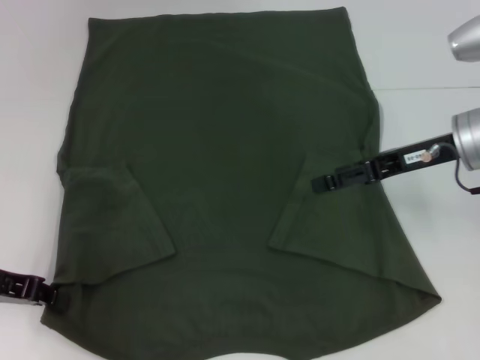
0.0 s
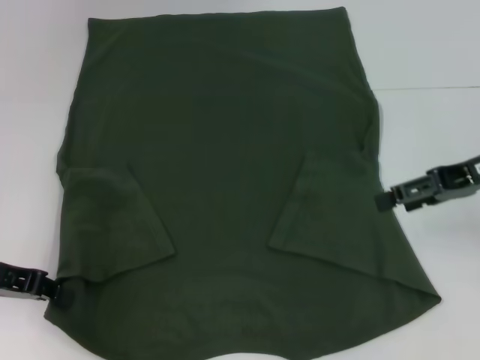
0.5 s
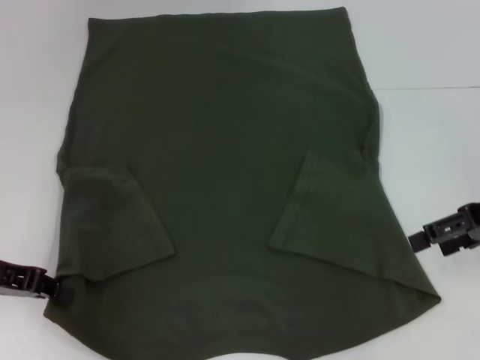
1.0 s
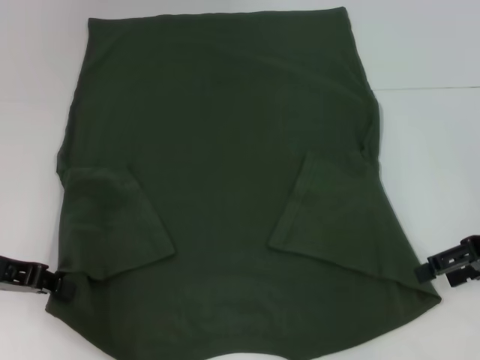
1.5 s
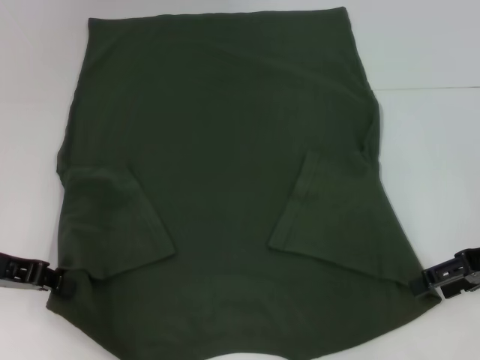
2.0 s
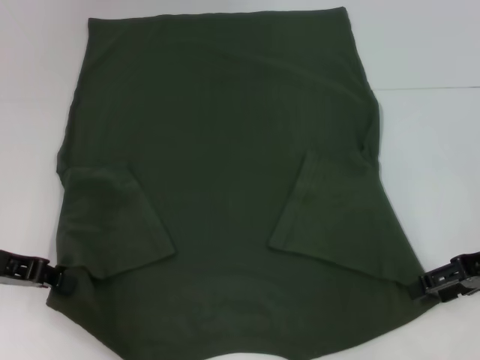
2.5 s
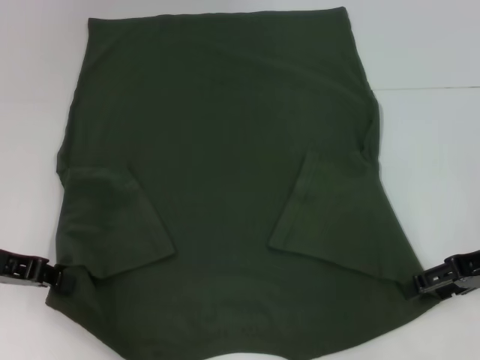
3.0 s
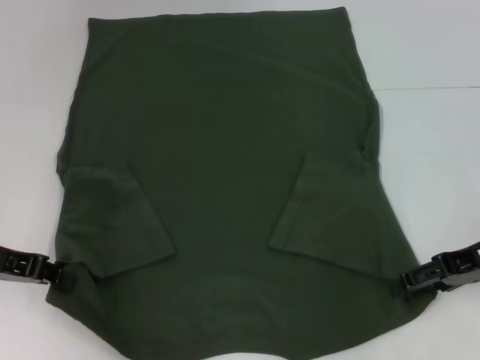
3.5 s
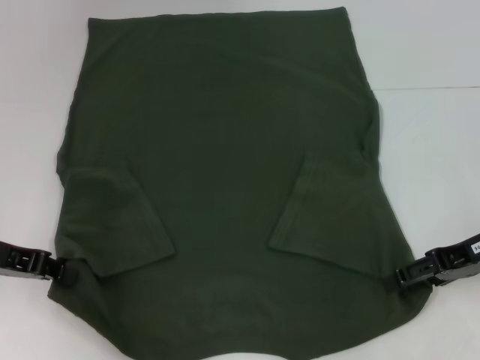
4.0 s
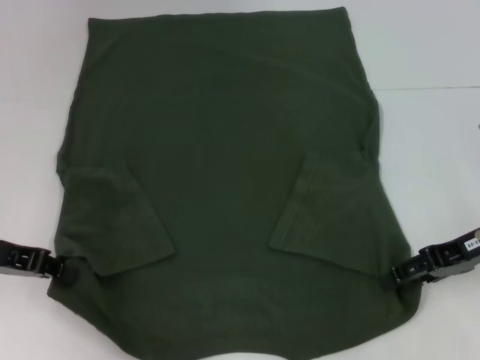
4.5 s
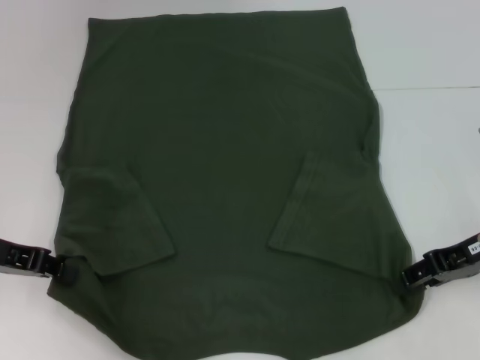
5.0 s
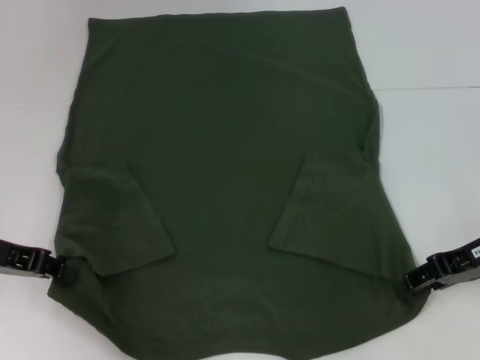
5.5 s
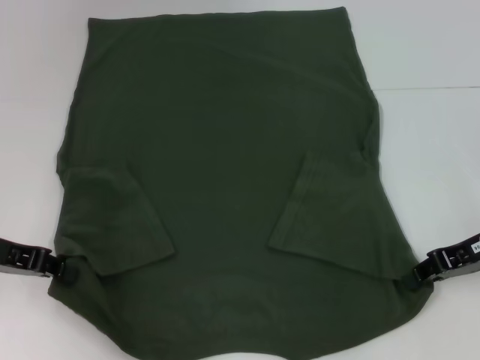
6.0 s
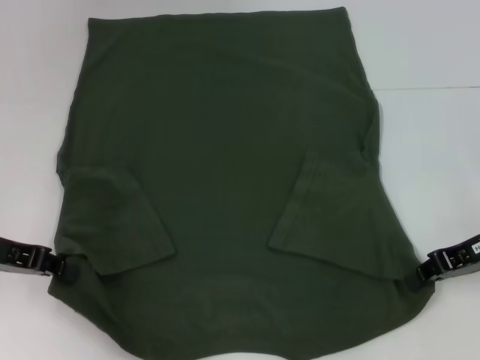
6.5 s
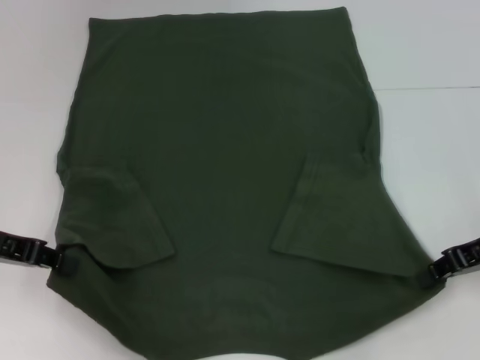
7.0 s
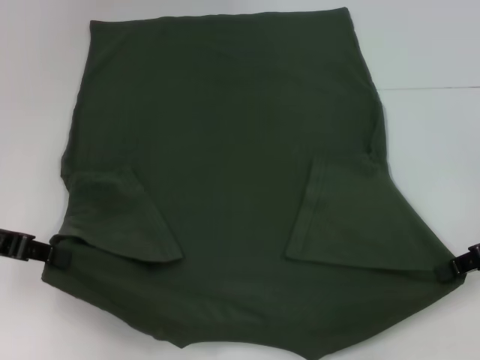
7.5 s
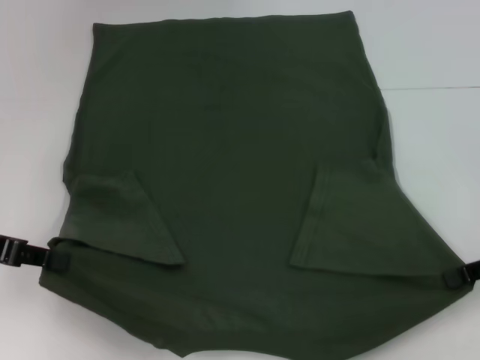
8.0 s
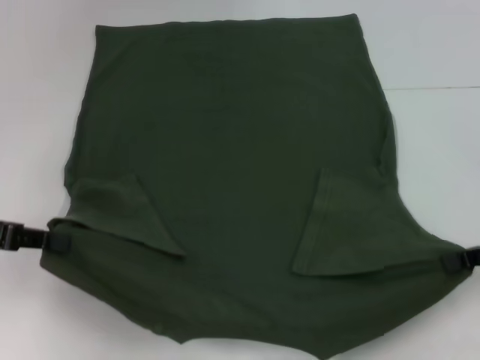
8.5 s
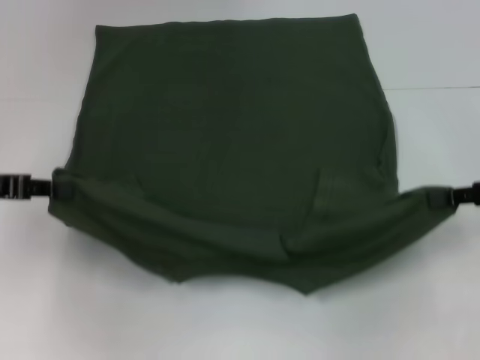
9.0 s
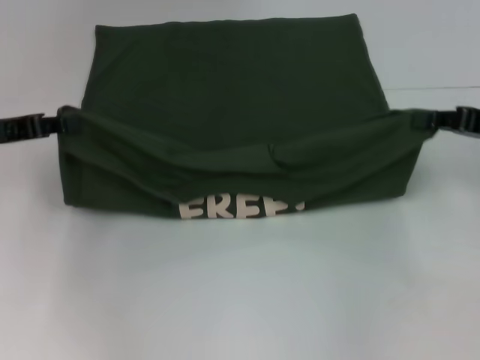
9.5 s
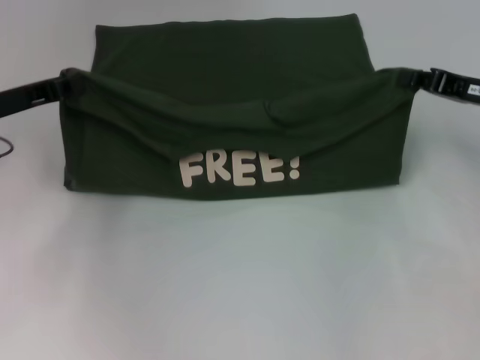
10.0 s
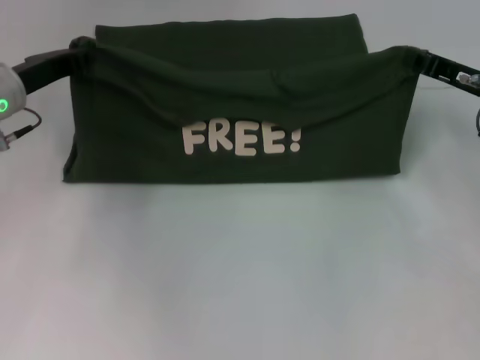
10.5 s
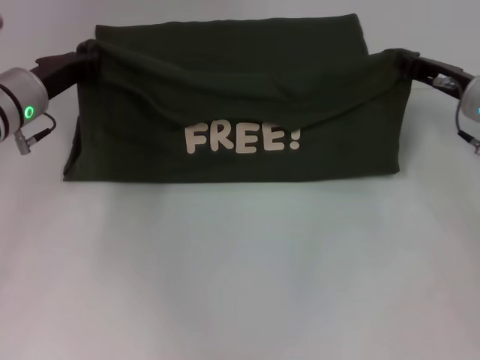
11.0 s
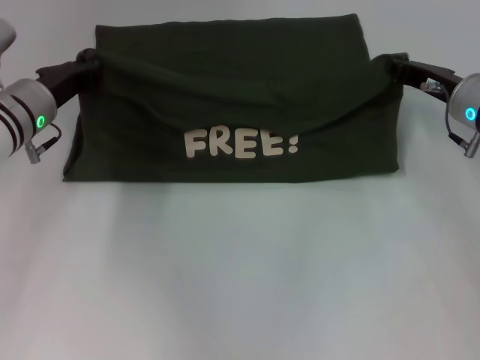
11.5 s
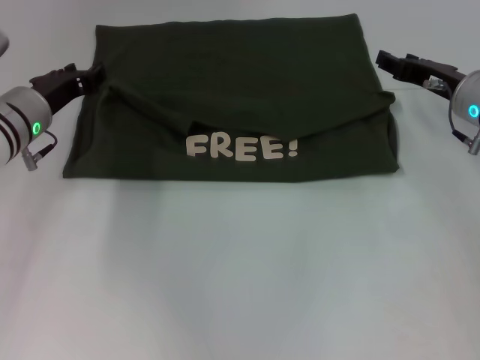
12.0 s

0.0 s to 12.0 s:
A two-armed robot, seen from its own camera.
Step, 0.0 to 6.5 s: Grab the bottom right corner with your right hand.
Step, 7.0 to 12.0 s: Fold the clothes with your left hand.
Step, 7.0 to 12.0 s: Fold the clothes with your right hand.
0.0 to 2.0 s: The right gripper is displaced to the right and backward by roughly 10 cm.
2.0 to 4.0 s: The grippers stay close to where they were, moving slightly.
6.0 to 8.0 s: The right gripper moves to the right, approximately 5 cm, and closes.
8.0 to 10.0 s: The grippers both shift forward by roughly 10 cm.
10.0 to 12.0 s: The left gripper travels to the right by roughly 5 cm; the right gripper shifts by approximately 5 cm, and opens.

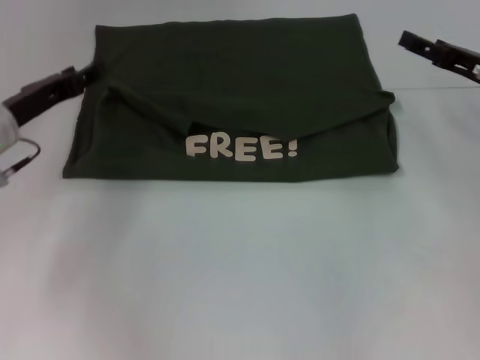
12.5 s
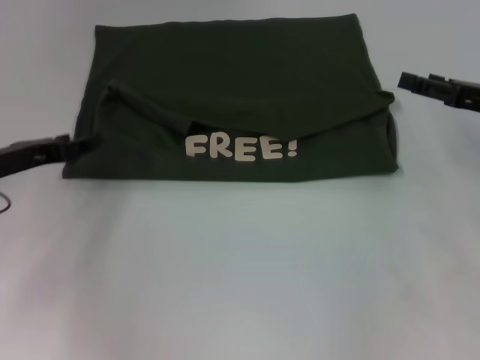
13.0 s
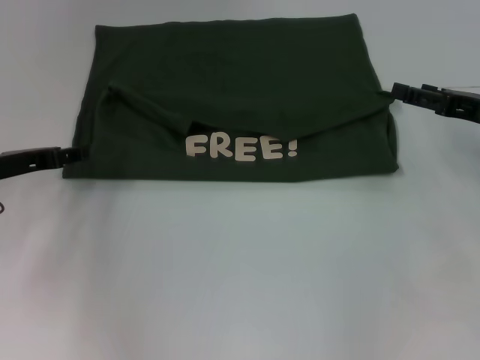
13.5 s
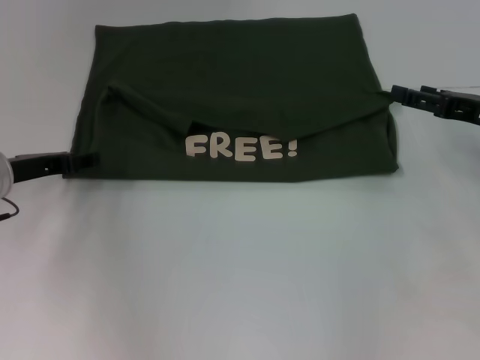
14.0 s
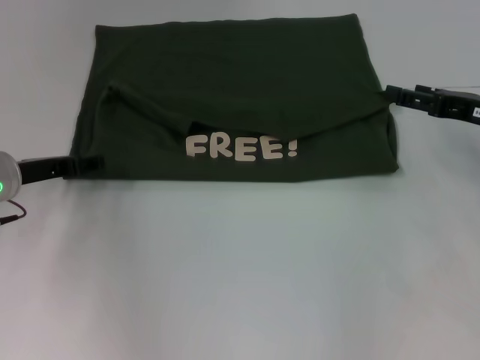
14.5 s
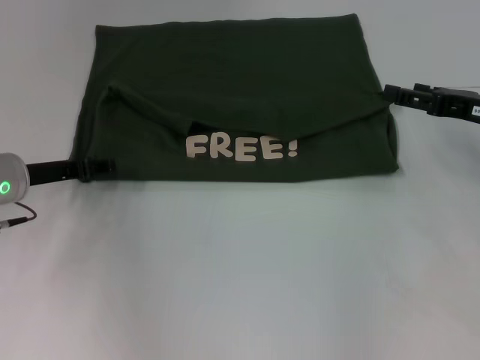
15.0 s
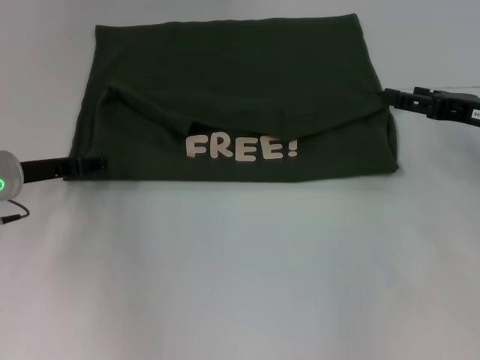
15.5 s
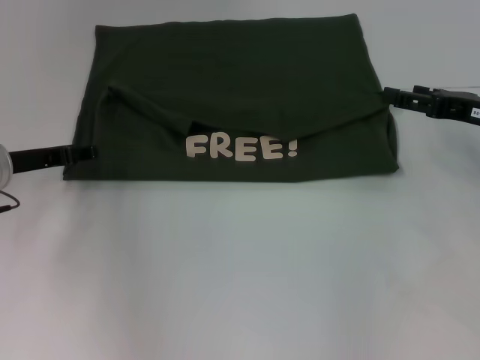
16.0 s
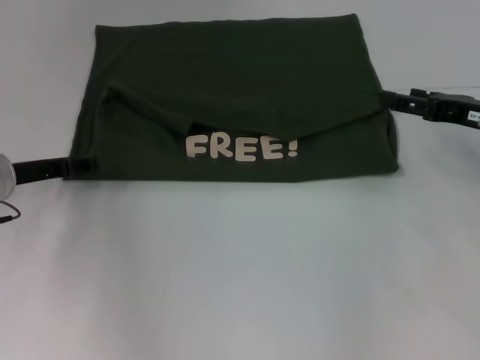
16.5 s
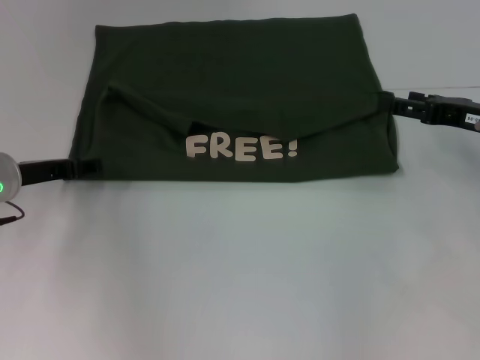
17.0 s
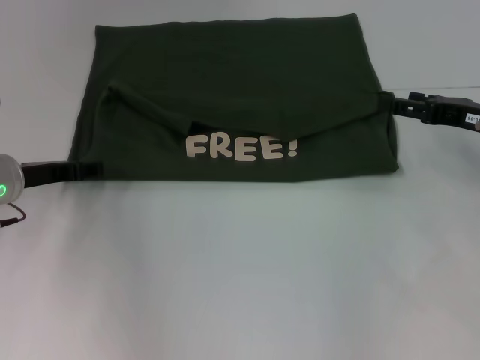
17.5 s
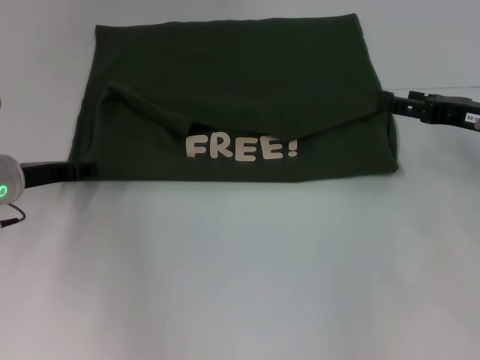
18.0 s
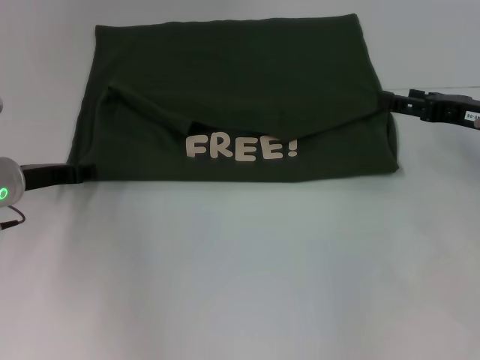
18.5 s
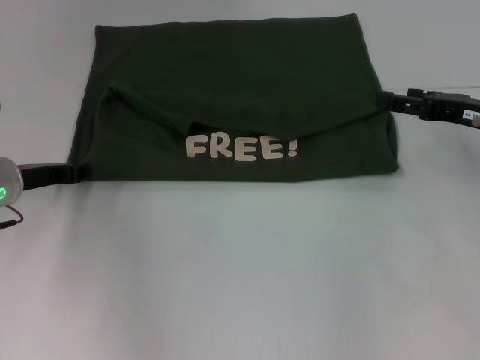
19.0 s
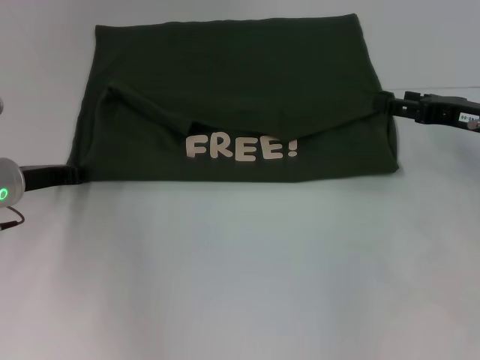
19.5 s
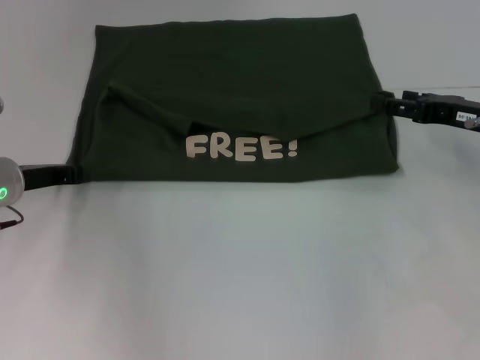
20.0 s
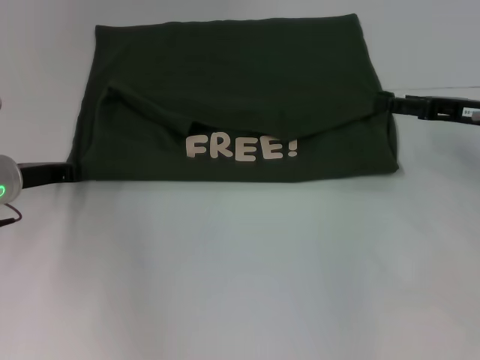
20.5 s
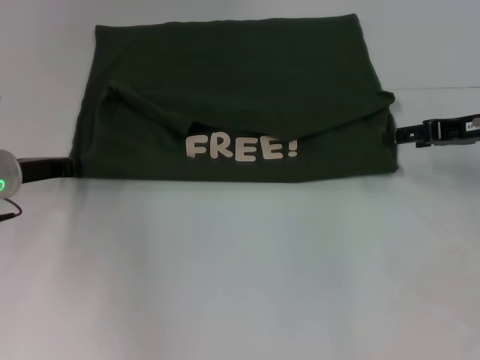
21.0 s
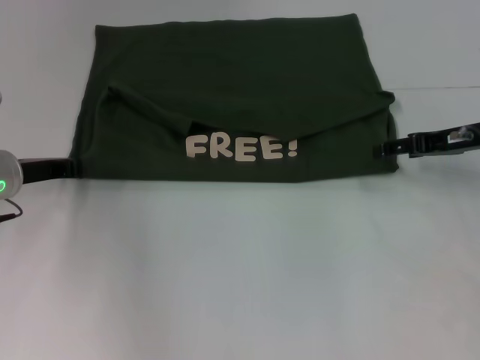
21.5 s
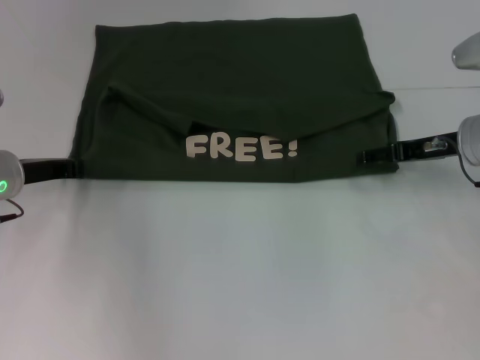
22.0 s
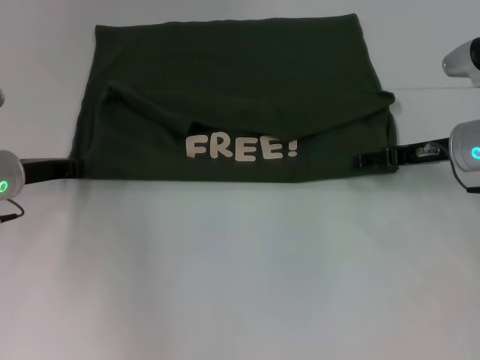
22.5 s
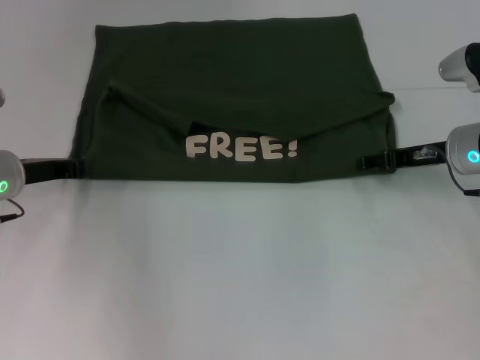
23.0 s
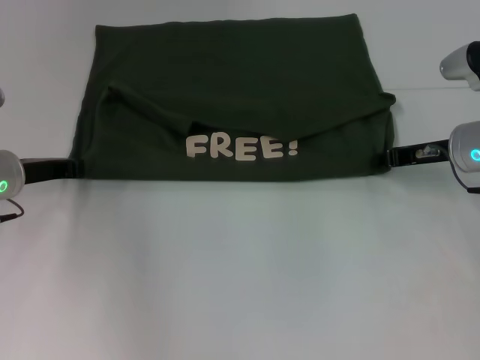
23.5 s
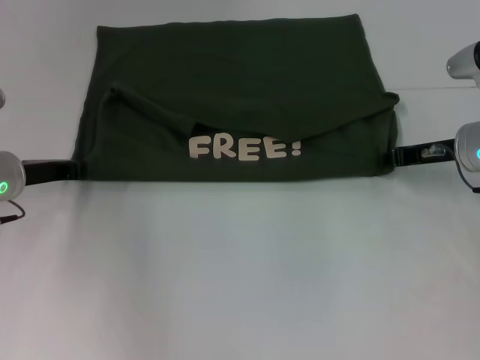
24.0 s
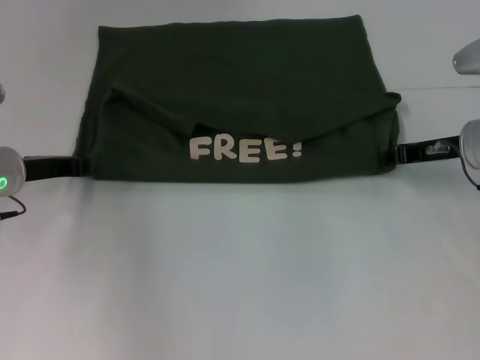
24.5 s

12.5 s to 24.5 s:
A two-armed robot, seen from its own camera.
14.5 to 16.5 s: The grippers stay close to where they were, moving slightly.
16.5 to 18.5 s: Neither gripper changes place.
20.5 to 22.5 s: The right gripper moves roughly 5 cm.
22.5 to 24.5 s: The right gripper closes.

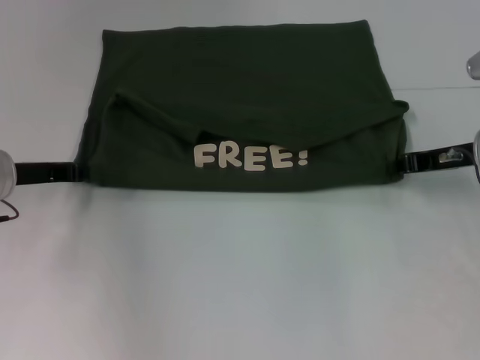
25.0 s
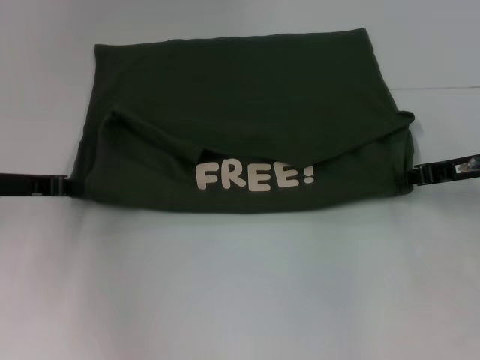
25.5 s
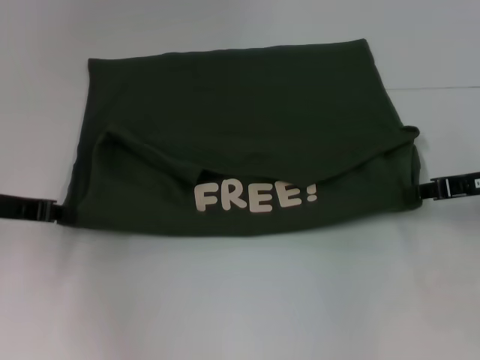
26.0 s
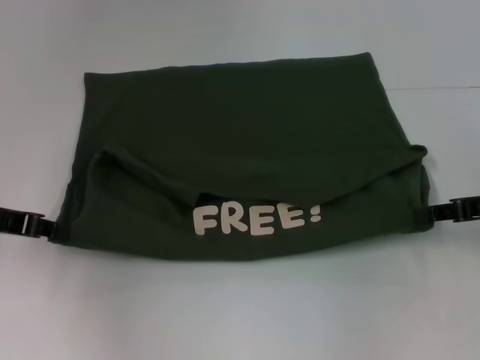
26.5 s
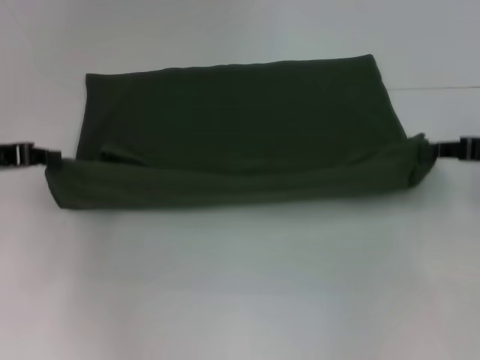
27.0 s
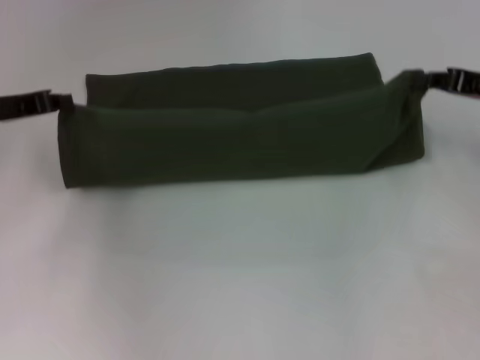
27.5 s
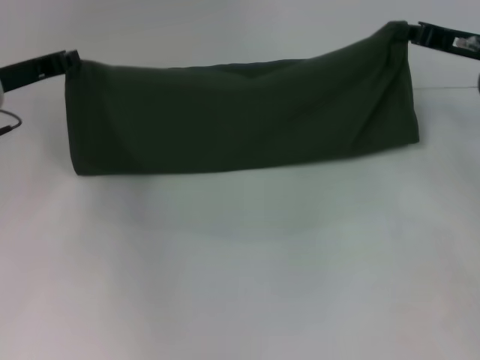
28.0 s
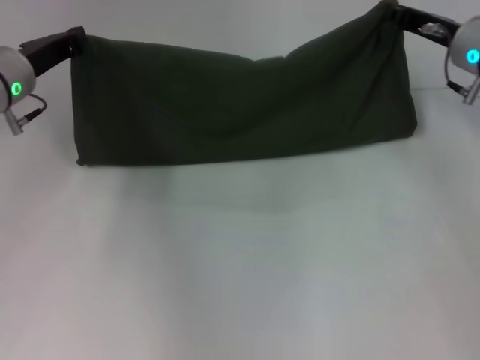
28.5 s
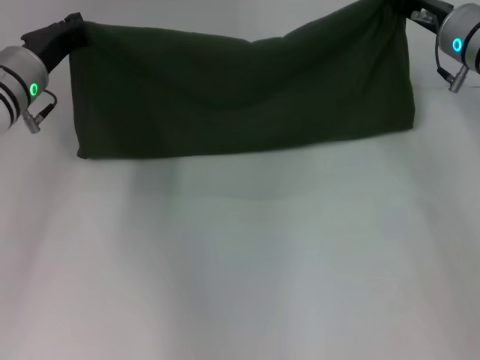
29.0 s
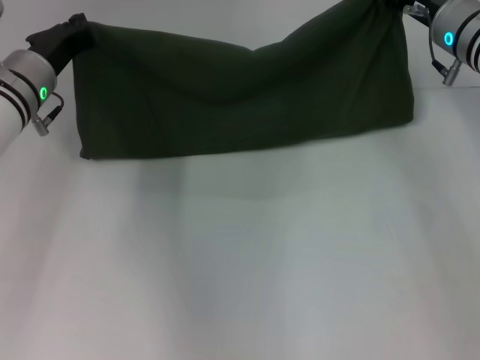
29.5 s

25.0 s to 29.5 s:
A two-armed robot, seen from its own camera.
25.0 to 27.0 s: The right gripper is displaced to the right and backward by approximately 10 cm. Meanwhile the left gripper travels upward by approximately 5 cm.
27.0 to 29.5 s: The left gripper heads to the right and forward, covering about 15 cm. Meanwhile the right gripper heads forward and to the left, covering about 15 cm.
